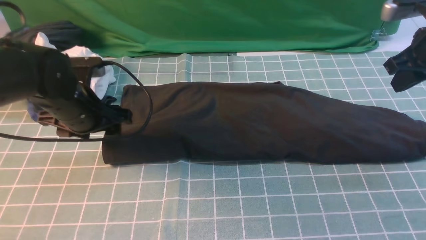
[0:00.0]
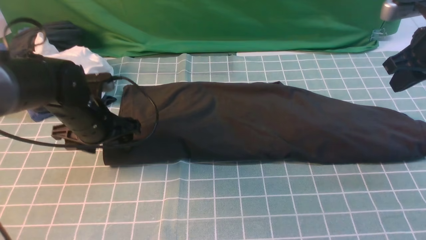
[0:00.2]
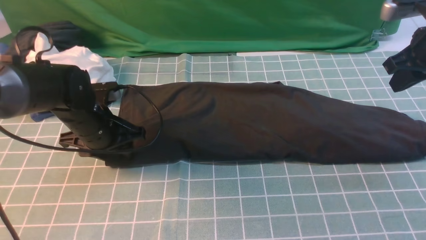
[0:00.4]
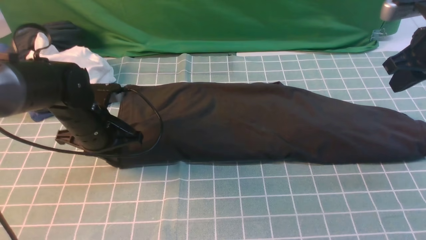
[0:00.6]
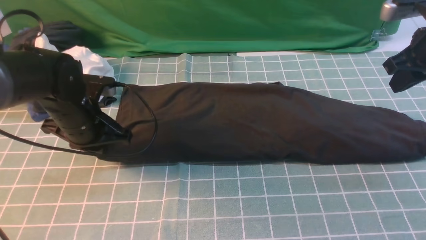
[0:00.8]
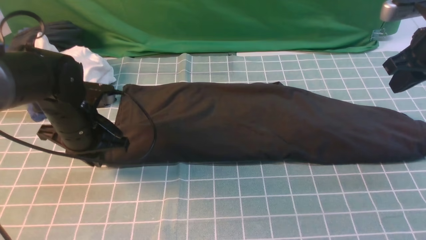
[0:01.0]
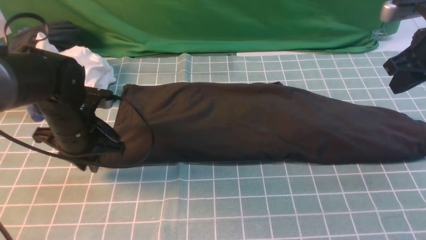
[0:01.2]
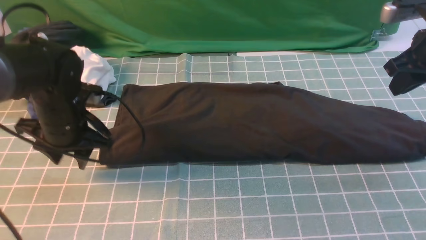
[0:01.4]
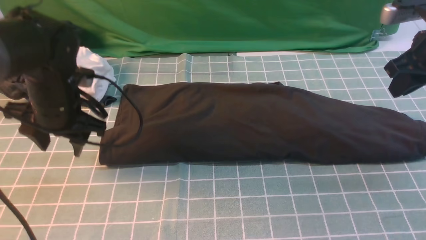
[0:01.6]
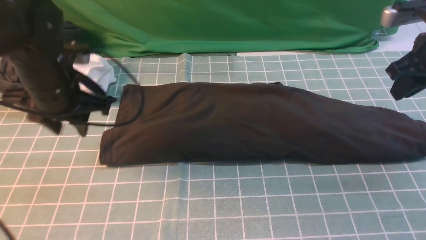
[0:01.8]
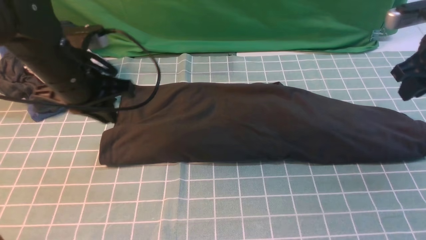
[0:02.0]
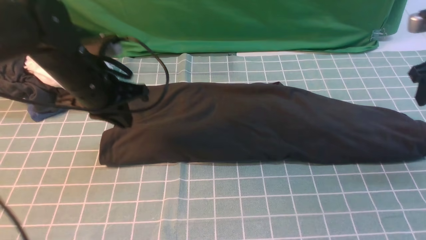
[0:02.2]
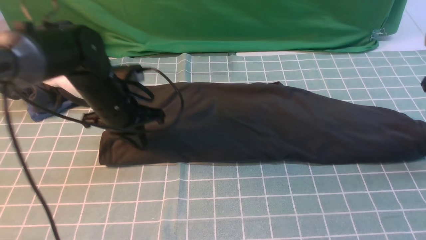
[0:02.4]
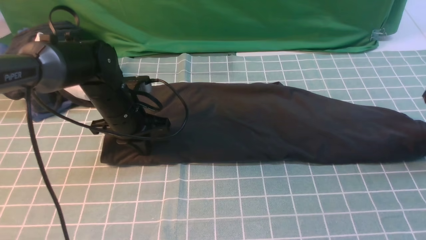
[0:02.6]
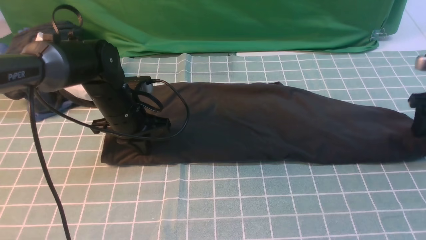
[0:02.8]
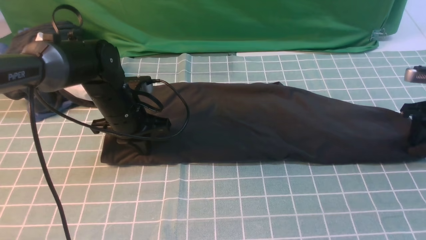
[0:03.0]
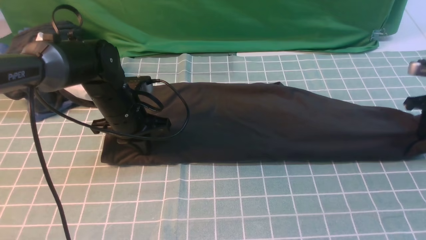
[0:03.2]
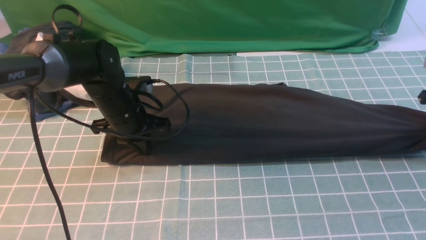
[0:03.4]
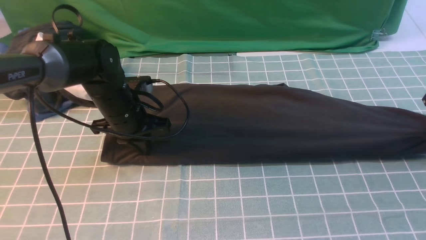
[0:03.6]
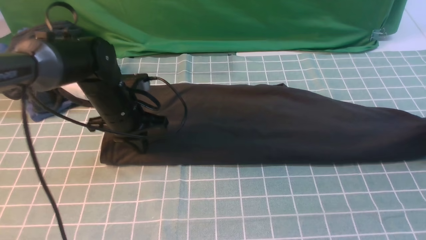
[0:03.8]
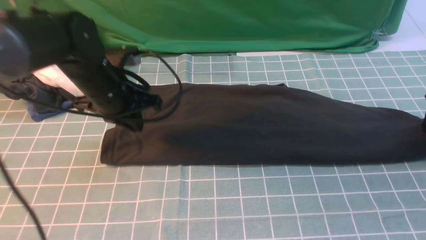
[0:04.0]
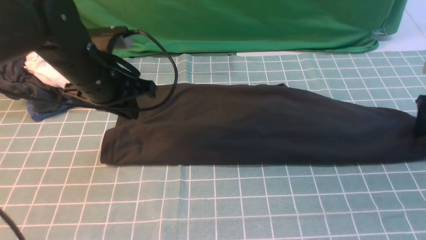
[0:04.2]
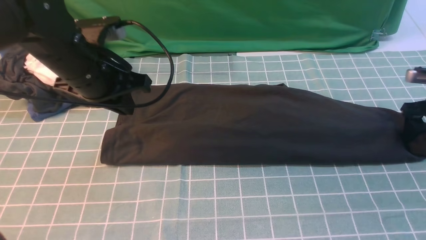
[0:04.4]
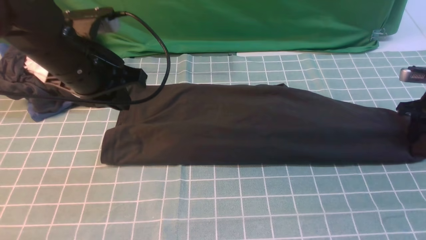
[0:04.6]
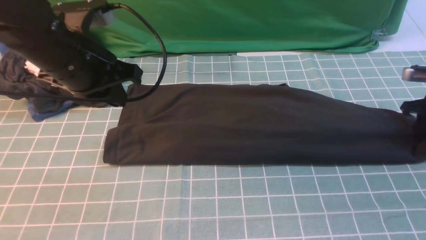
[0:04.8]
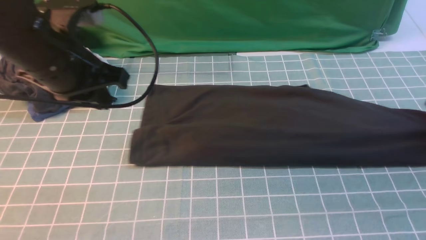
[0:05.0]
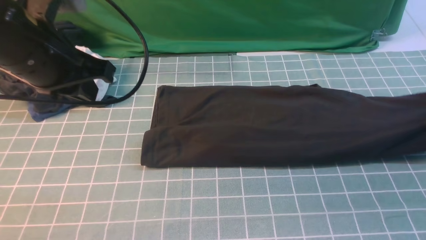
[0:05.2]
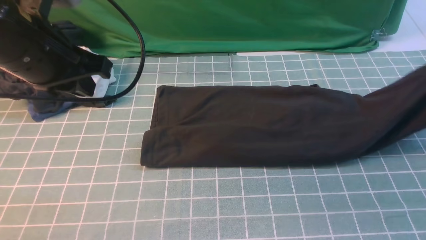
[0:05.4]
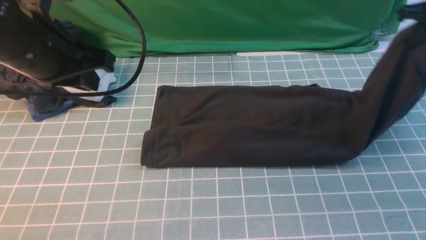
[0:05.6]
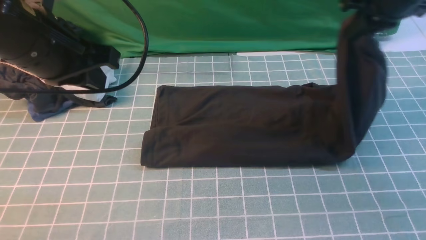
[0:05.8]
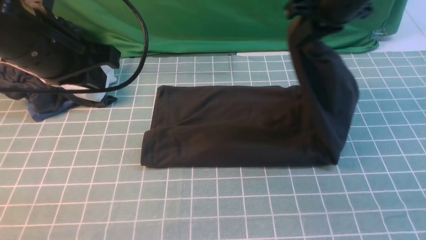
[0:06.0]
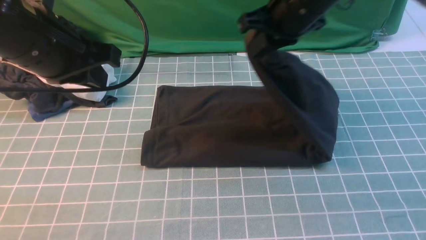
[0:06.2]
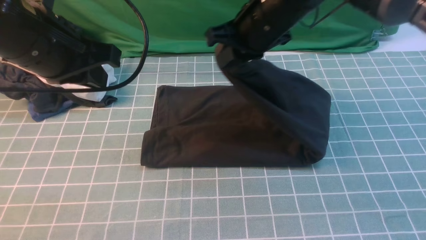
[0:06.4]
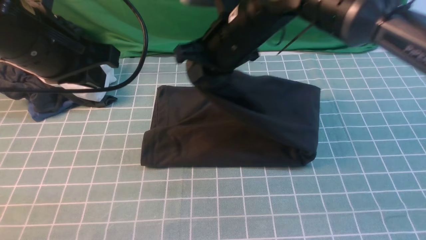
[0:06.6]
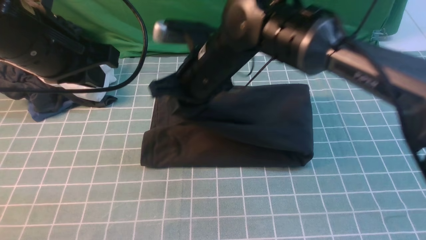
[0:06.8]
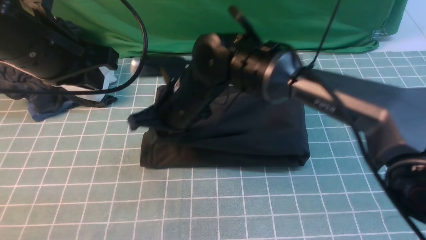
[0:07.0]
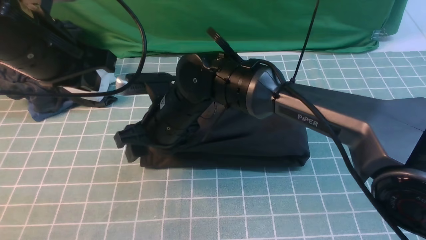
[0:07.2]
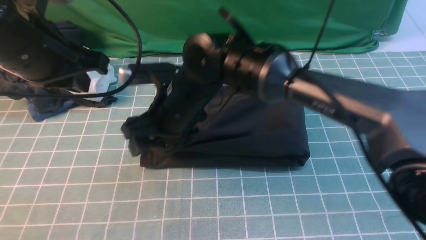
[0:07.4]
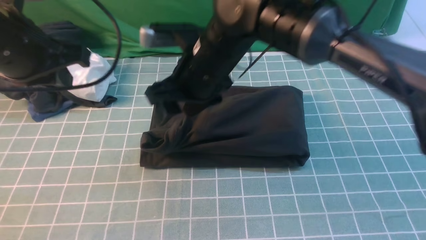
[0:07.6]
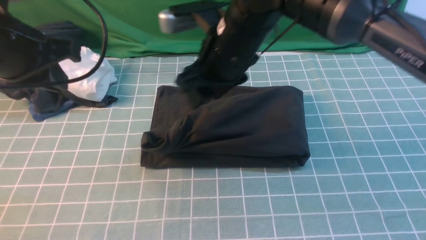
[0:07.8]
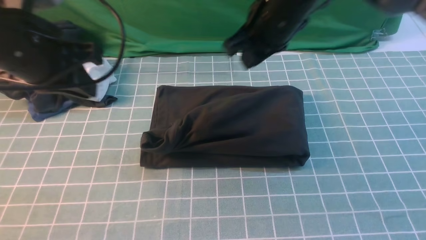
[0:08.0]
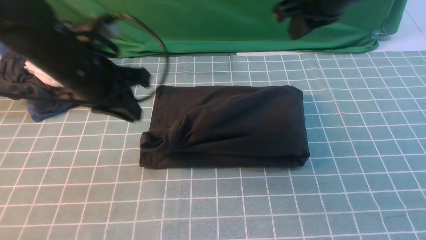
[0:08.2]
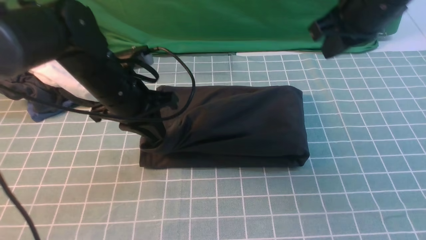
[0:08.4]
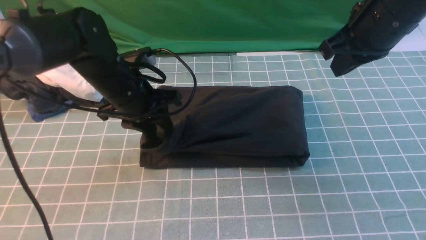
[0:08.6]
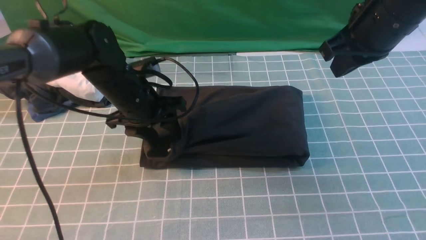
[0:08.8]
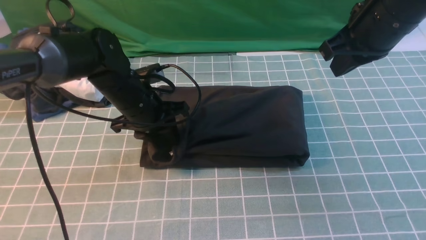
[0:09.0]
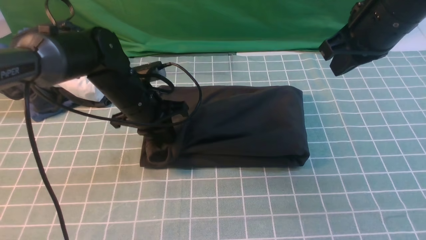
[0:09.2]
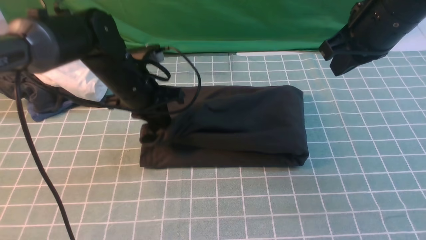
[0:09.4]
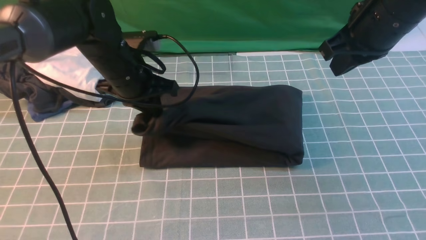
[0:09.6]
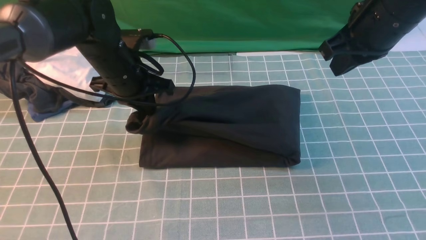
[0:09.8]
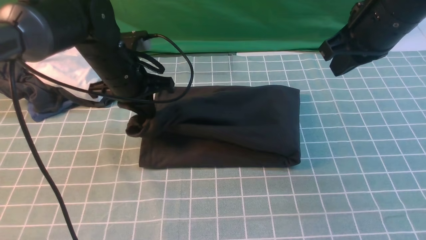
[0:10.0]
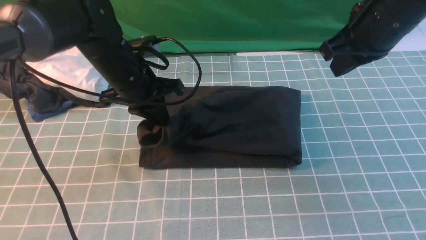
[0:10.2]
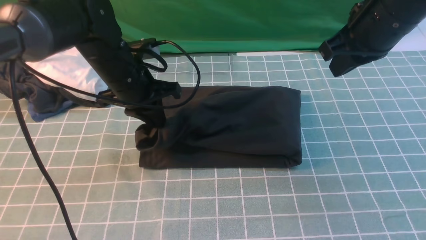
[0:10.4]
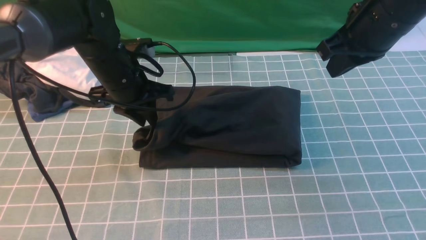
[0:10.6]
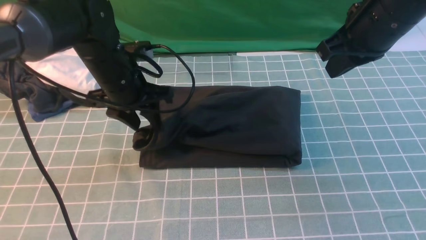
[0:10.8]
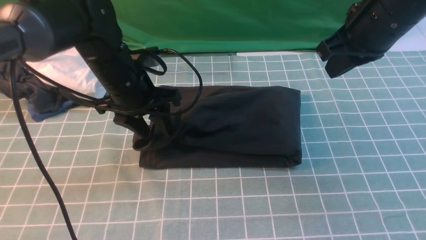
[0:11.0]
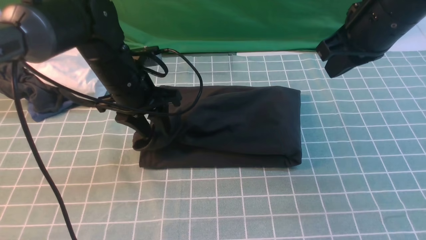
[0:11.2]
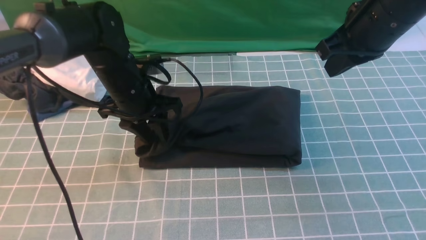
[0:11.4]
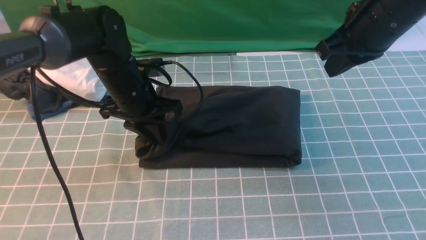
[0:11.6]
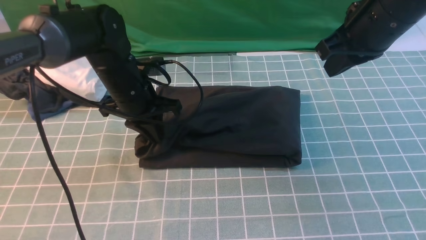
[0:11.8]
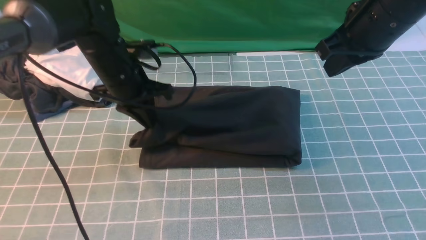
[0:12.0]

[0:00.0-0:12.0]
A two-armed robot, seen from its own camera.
Step, 0:00.0 to 0:04.8: use the right arm to clamp the right edge of the fabric.
Step, 0:05.0 to 0:07.6: use the right arm to drag the right edge of the fabric to the left and folds it over the left edge.
0:00.0 to 0:01.6: The left gripper closes and opens again.
0:01.6 to 0:03.0: The left gripper is displaced downward and to the right by roughly 10 cm, and closes up; the right gripper moves downward and to the right, about 15 cm, and opens and closes again.
0:03.0 to 0:04.4: The left gripper moves upward, roughly 15 cm, while the right gripper opens up.
0:04.4 to 0:06.0: The right gripper moves to the left and upward, some 30 cm, and closes its fingers. The left gripper heads upward and backward, covering approximately 10 cm.
0:06.0 to 0:07.6: The right gripper heads to the left, covering approximately 15 cm, and opens.
0:07.6 to 0:09.0: The right gripper travels to the right by some 20 cm, and closes up, while the left gripper goes about 20 cm downward, forward and to the right, and opens up.
0:09.0 to 0:10.4: The grippers move only a little.
0:10.4 to 0:12.0: The left gripper opens and closes again.

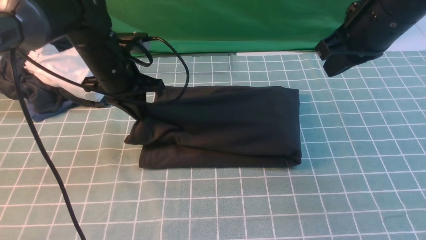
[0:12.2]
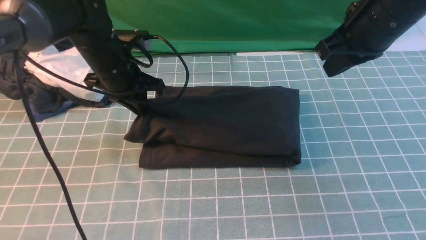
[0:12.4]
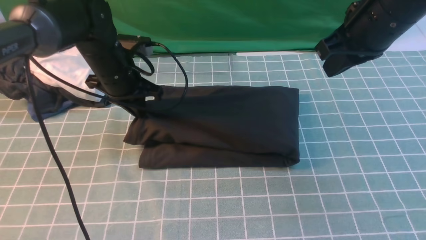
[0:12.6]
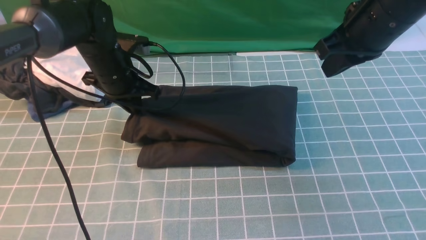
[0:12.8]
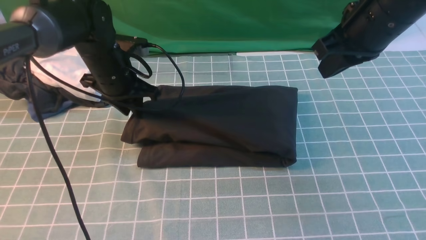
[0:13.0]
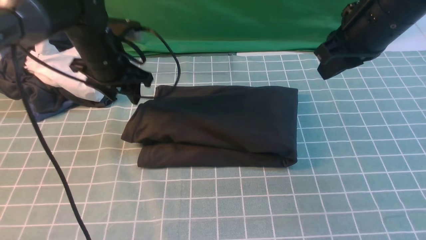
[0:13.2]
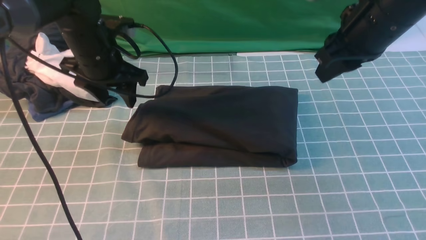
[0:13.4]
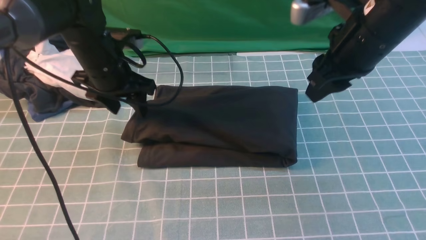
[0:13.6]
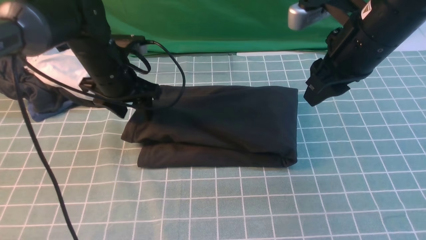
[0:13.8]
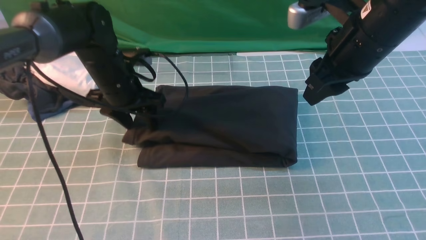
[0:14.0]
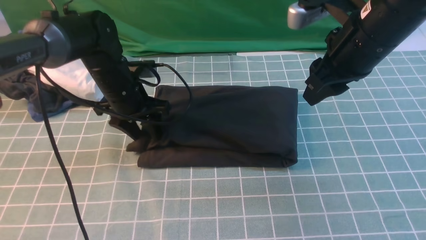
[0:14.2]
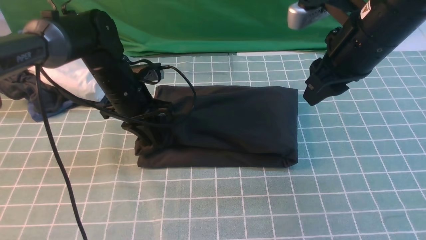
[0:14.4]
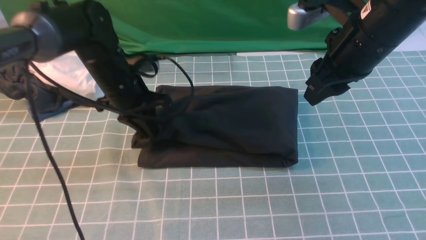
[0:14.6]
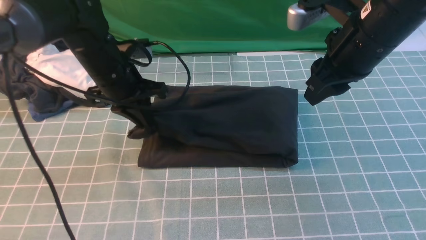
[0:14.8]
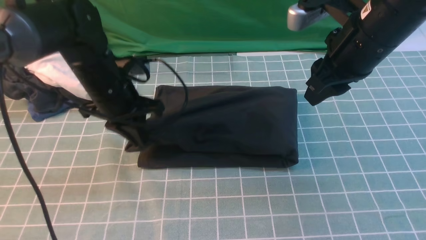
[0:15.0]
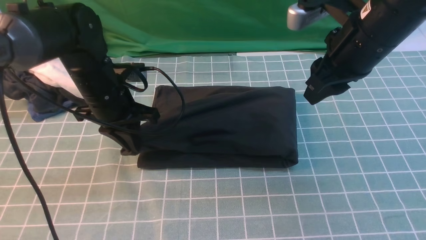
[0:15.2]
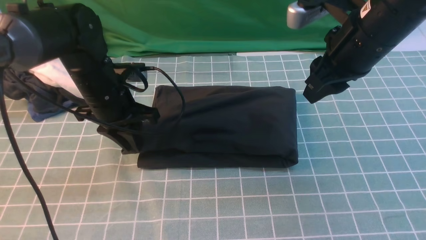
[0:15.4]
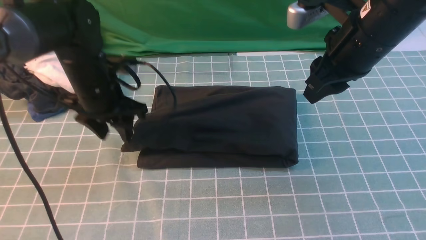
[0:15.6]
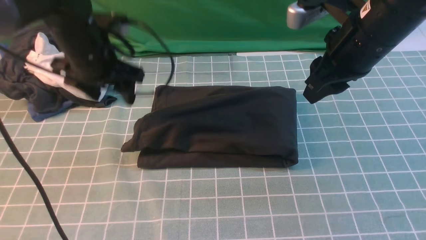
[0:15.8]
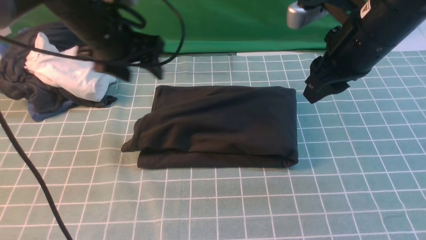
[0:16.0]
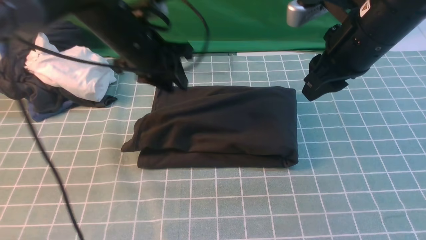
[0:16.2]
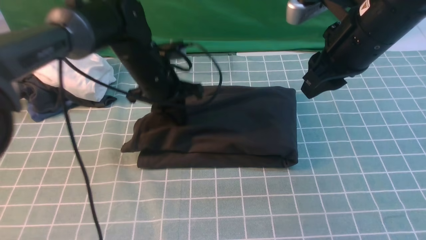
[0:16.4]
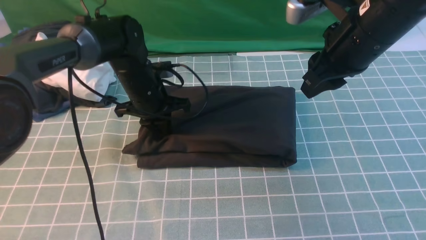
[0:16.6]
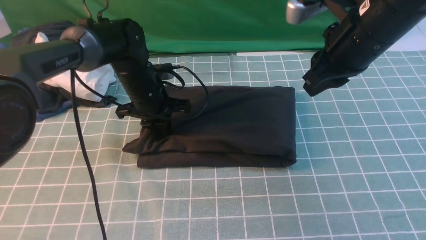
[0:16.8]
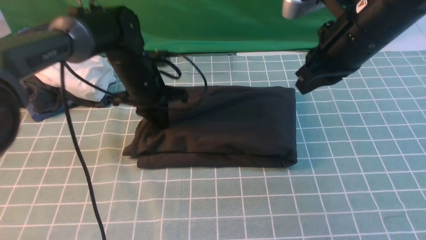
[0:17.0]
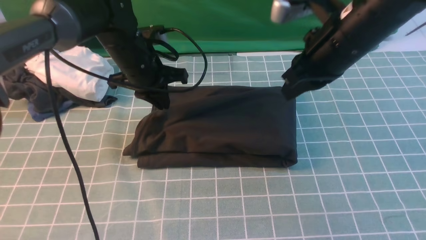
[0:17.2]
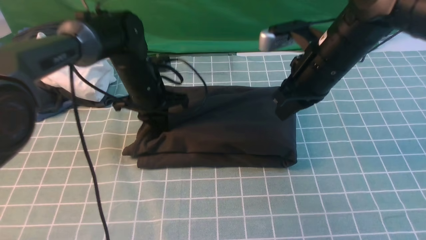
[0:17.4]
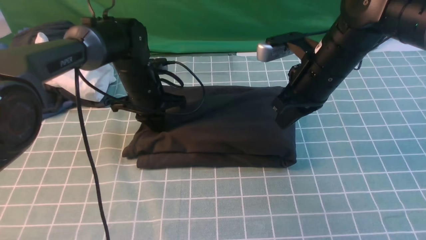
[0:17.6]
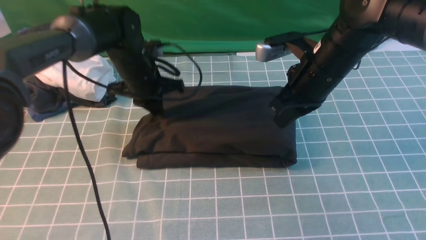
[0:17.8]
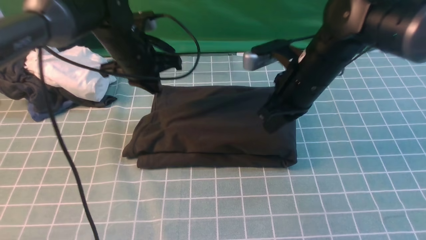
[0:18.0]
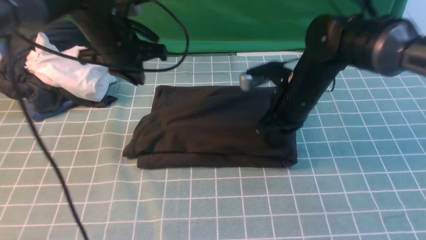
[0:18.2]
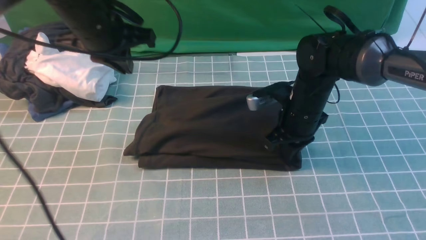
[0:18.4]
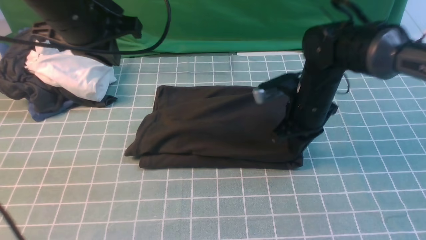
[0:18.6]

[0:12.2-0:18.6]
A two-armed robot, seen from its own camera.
0:12.2 to 0:13.8: The right gripper opens its fingers, while the left gripper opens up.
0:13.8 to 0:15.4: The left gripper closes.
0:15.4 to 0:17.0: The right gripper closes up. The left gripper shifts about 5 cm forward, moves about 5 cm upward and comes back, and closes its fingers.
0:17.0 to 0:18.6: The left gripper shifts approximately 20 cm upward and backward. Meanwhile the right gripper heads downward, covering about 10 cm.
